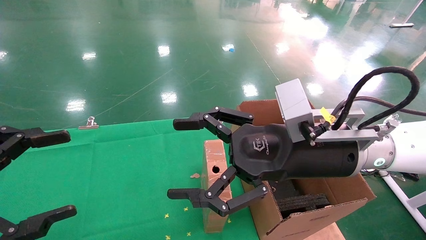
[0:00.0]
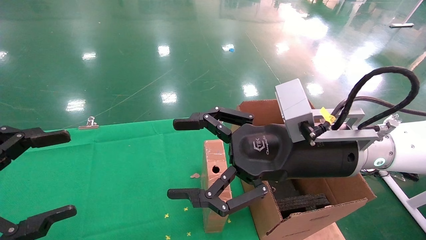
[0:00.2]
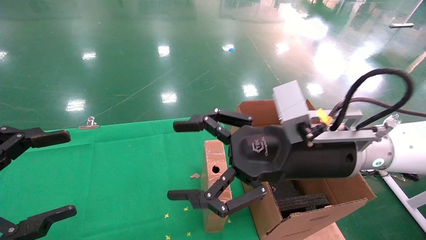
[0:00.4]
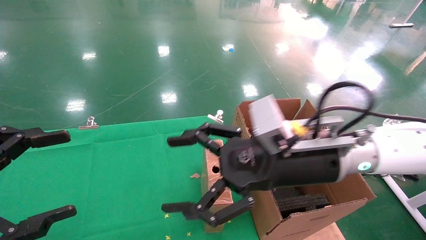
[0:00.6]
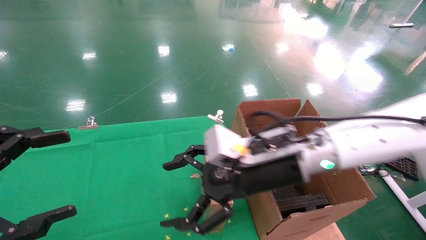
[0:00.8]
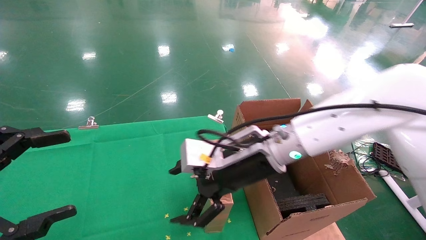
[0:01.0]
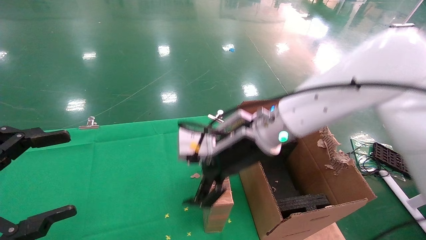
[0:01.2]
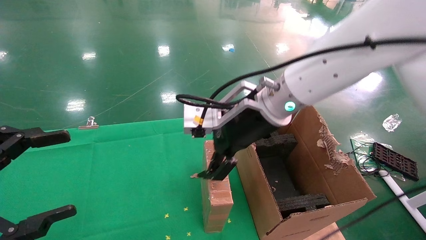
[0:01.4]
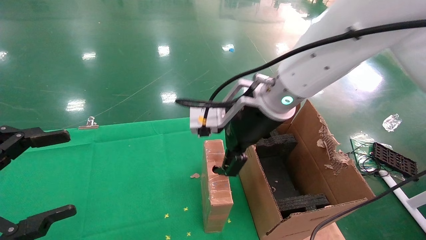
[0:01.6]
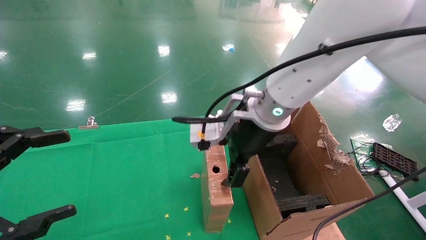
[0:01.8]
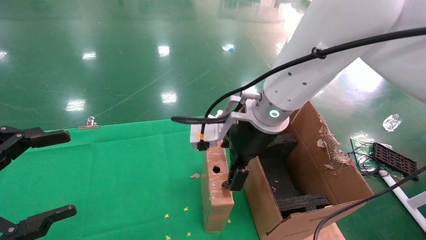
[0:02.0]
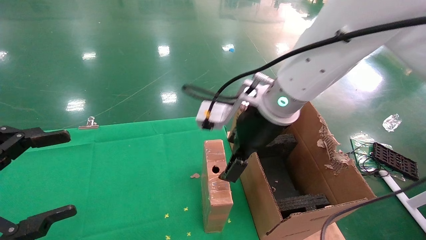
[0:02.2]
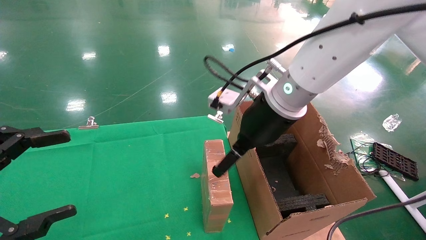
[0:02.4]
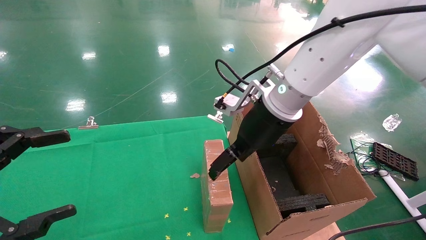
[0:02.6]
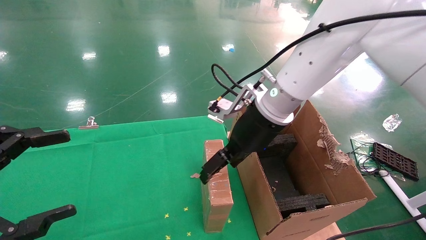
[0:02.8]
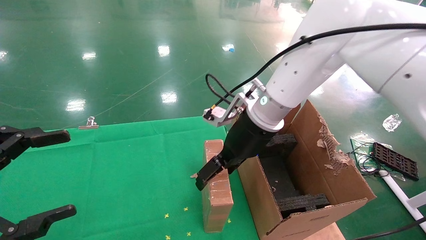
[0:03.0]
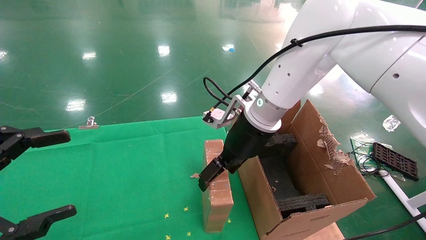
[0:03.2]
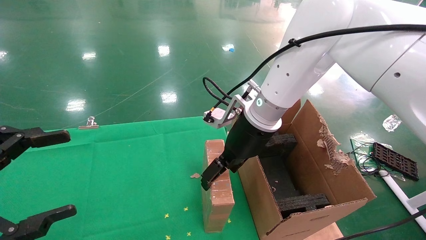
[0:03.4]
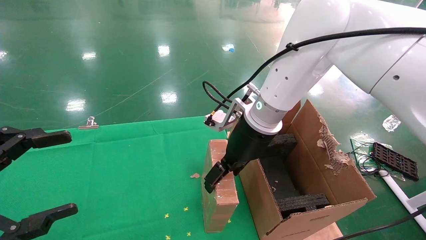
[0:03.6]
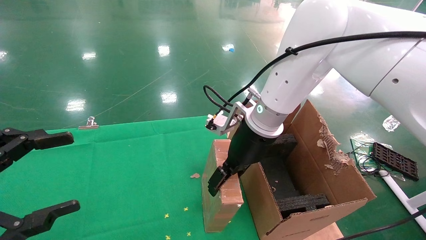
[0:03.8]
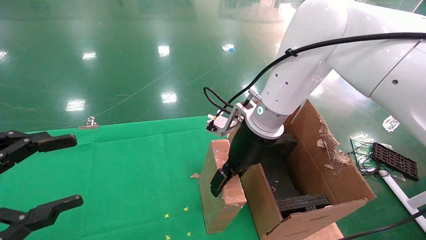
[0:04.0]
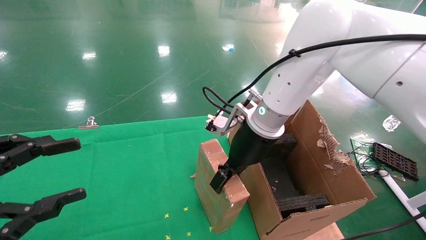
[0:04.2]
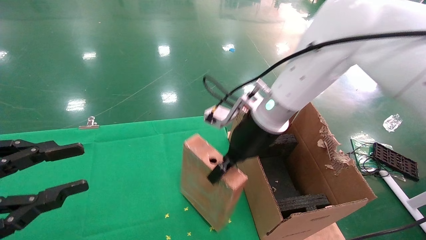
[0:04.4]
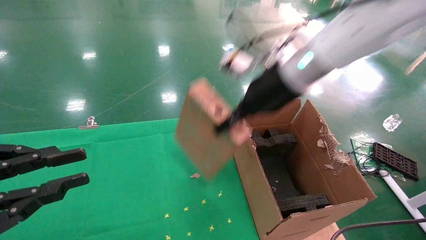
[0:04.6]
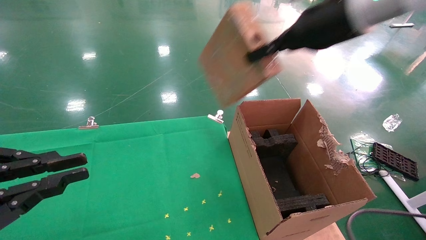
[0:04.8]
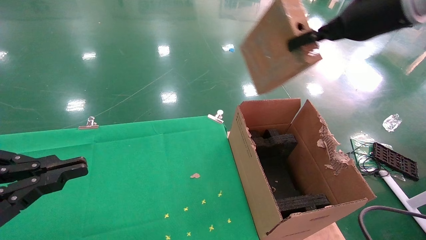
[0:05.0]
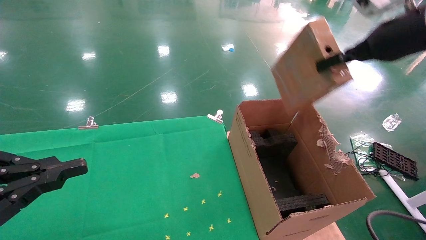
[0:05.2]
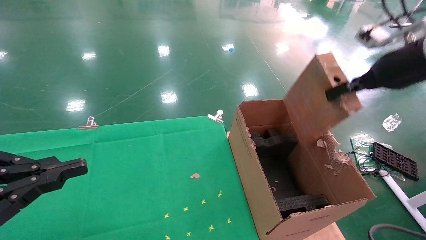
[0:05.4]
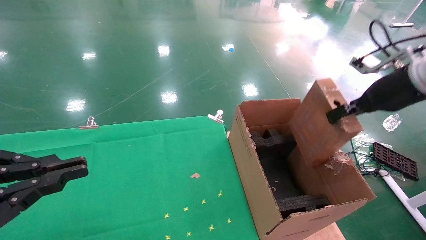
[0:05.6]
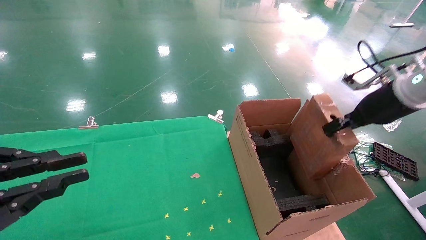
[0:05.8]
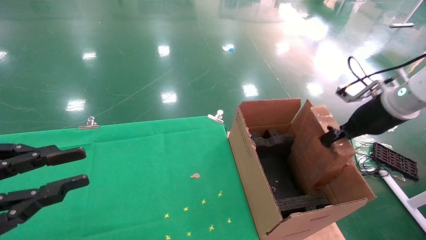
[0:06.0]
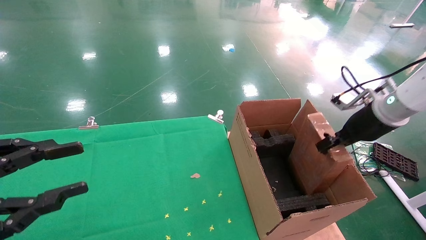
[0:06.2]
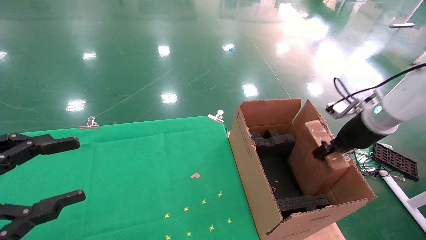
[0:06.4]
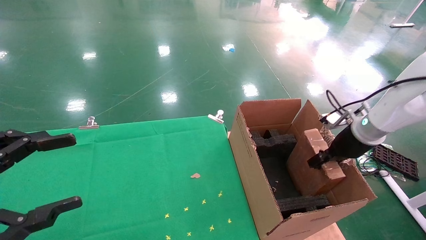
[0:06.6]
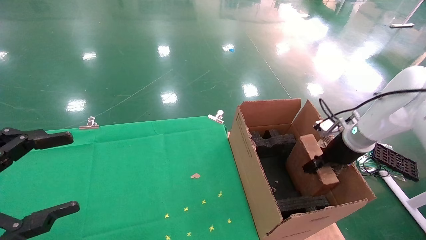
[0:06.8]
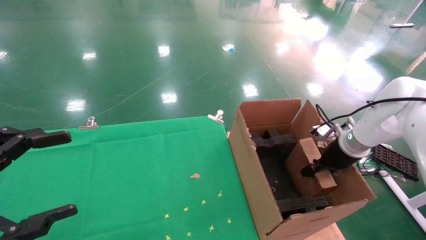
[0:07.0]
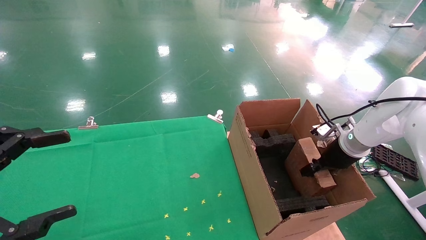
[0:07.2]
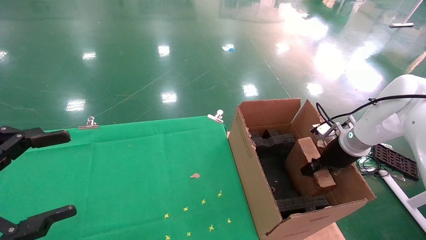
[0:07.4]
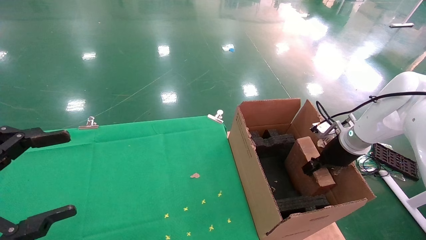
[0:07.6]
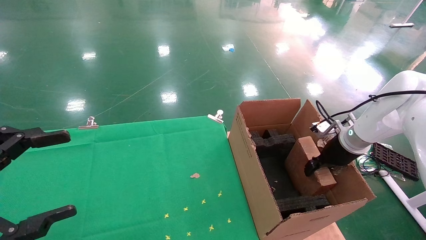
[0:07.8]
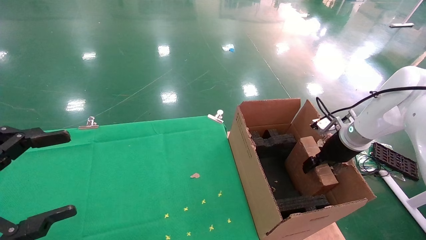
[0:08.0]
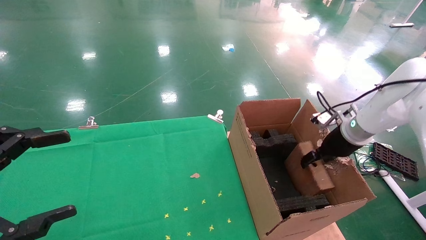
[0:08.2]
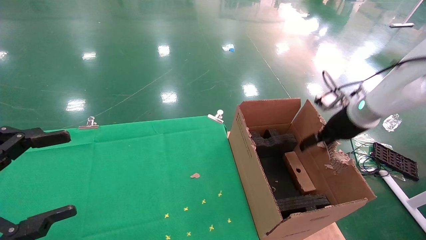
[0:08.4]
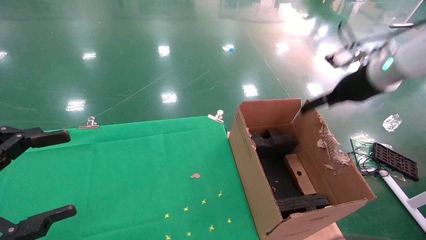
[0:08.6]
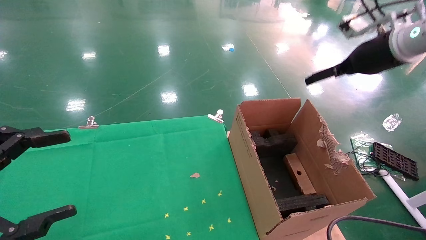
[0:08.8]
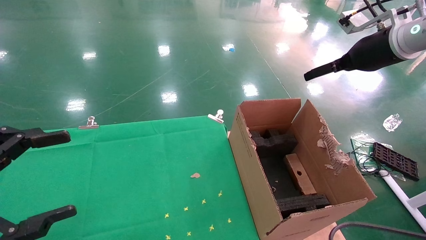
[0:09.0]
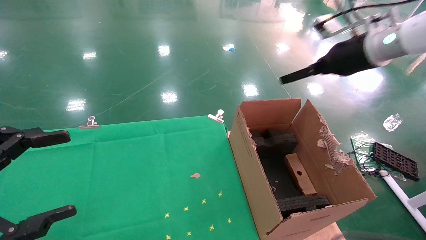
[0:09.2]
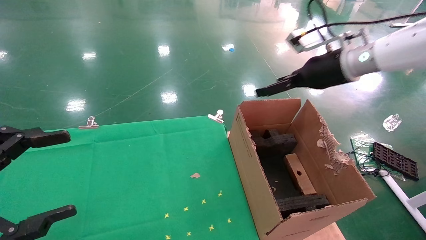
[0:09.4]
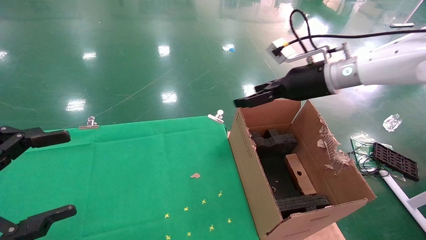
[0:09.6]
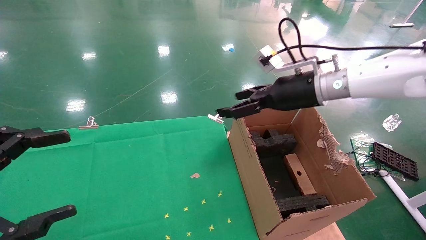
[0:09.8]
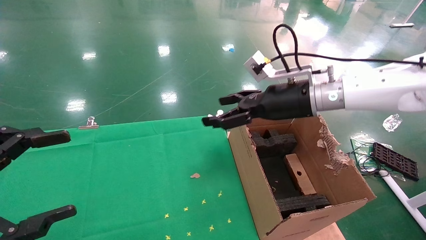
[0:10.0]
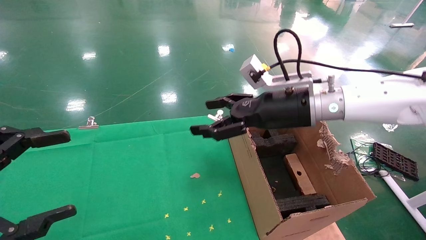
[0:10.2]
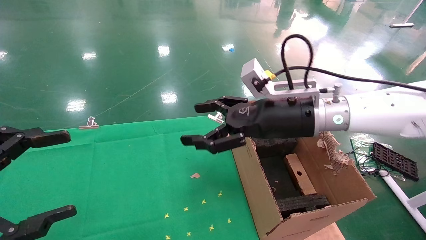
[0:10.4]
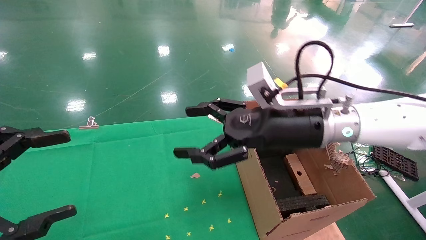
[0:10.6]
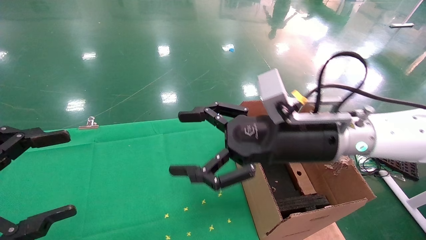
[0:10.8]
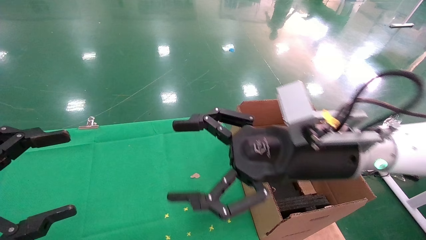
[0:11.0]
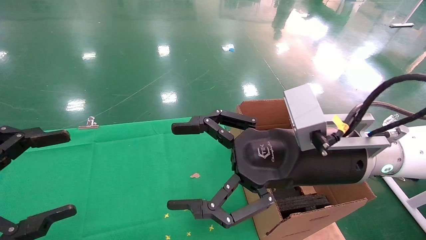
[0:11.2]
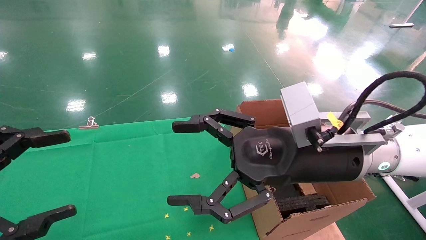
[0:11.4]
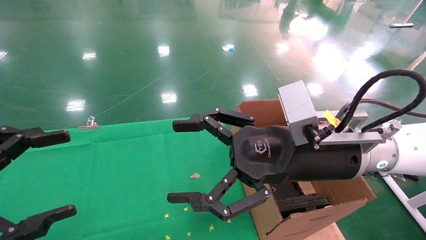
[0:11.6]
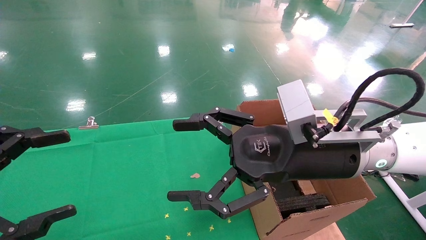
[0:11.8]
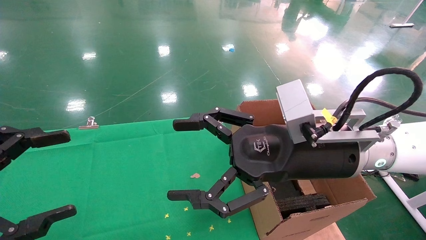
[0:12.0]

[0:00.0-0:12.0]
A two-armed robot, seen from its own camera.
Task of the whole recording: using a robotic arm to pick up a cardboard box and palace it the carton.
Step, 0:00.6 to 0:04.2: Pick up the mouse and the power cord paper box.
Step, 0:04.4 to 0:08.2: Place the mouse and the power cord paper box into the container.
0:00.0 to 0:01.6: The right gripper is displaced forward and to the left by roughly 10 cm.
0:03.0 to 0:04.4: The left gripper closes. The right gripper closes.
0:04.4 to 0:06.0: The right gripper is displaced to the right by approximately 25 cm.
0:06.0 to 0:07.6: The right gripper shifts some 15 cm downward and forward. The left gripper opens its fingers.
0:07.6 to 0:09.0: The right gripper moves upward, some 20 cm, and opens.
0:09.0 to 0:10.4: The right gripper goes some 20 cm to the left and downward.
0:10.4 to 0:12.0: The right gripper shifts approximately 10 cm backward.

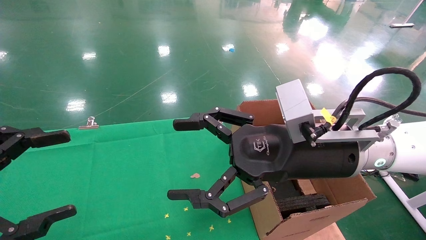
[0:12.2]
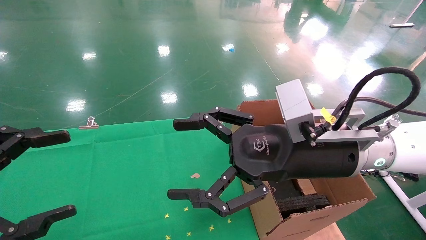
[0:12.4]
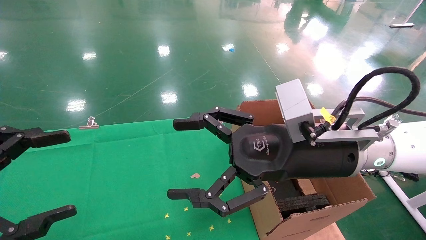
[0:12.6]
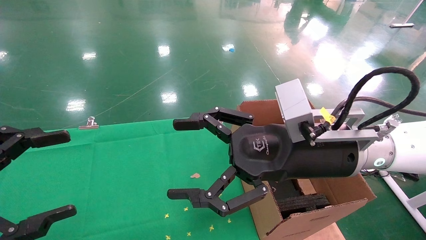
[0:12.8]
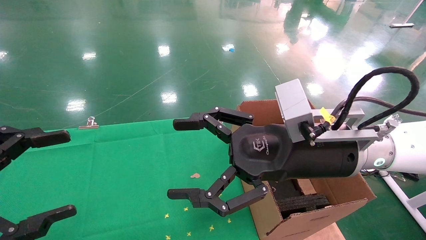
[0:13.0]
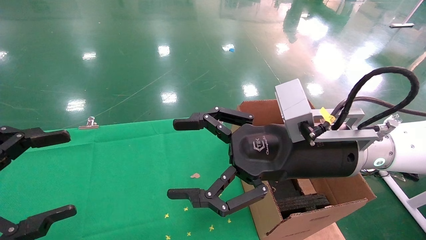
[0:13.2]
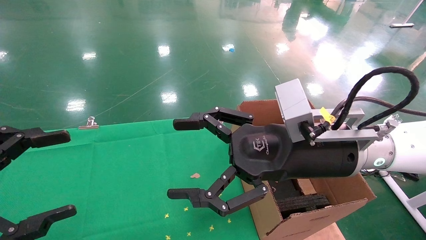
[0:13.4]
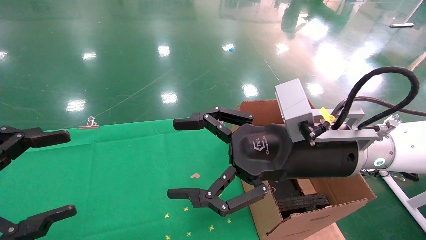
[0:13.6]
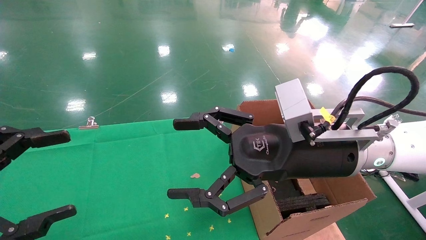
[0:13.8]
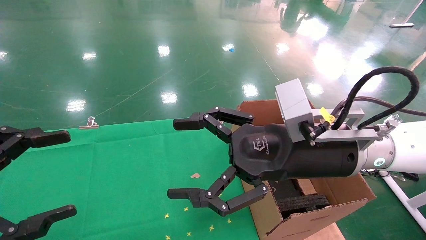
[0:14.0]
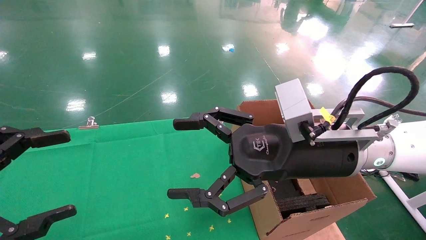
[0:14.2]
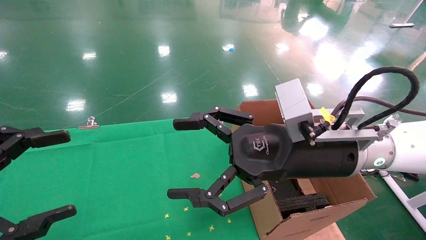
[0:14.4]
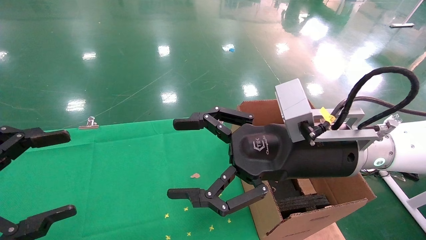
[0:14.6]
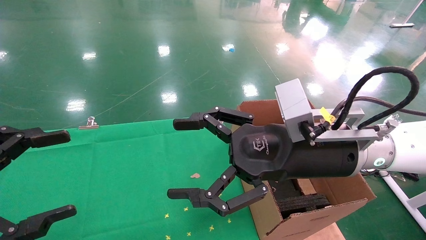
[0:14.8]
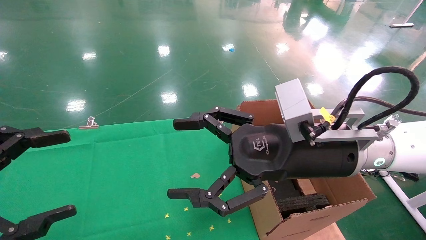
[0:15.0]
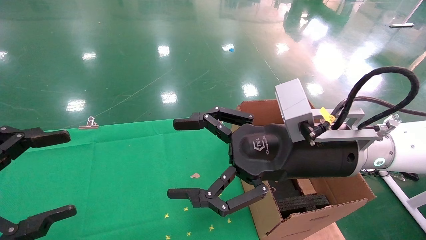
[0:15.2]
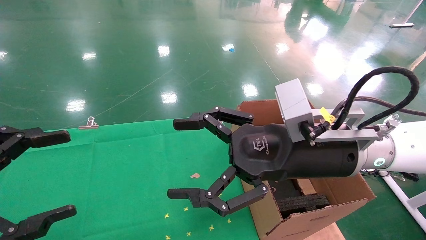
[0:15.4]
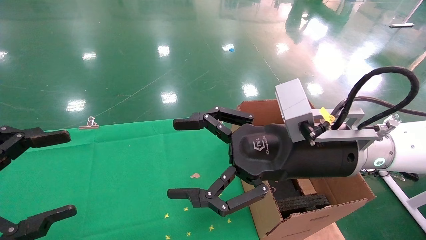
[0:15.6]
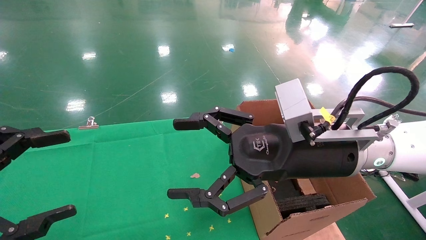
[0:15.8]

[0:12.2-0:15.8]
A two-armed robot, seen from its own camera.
Task of the whole recording: using a robotic arm to pick up a cardboard box and palace it the carton.
0:12.2 to 0:15.8: The two grippers keep their place.

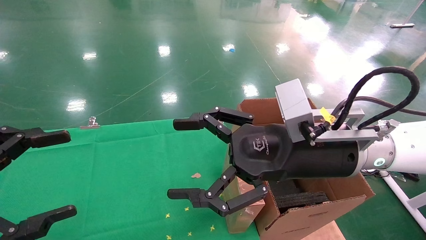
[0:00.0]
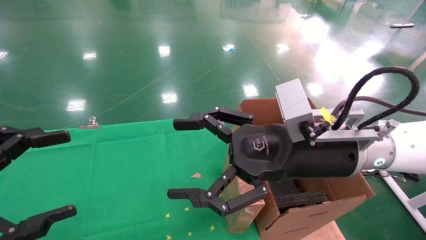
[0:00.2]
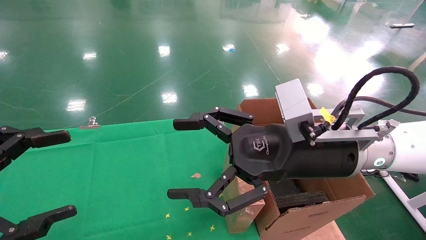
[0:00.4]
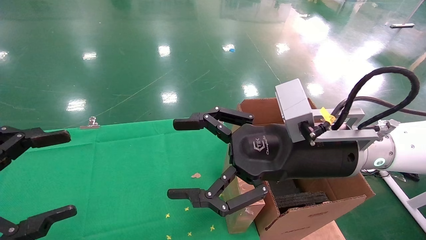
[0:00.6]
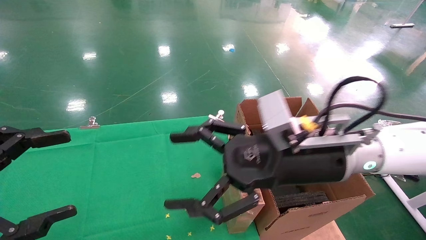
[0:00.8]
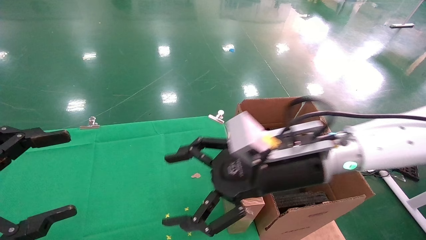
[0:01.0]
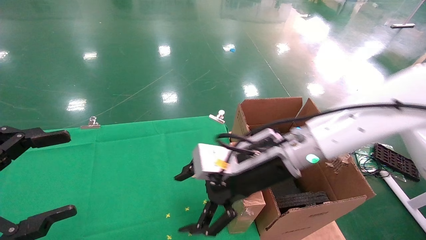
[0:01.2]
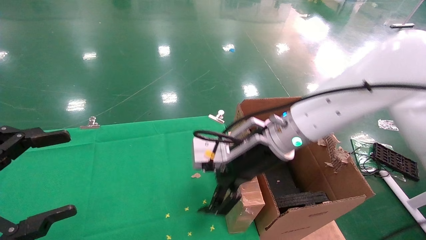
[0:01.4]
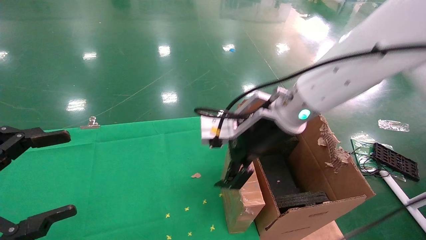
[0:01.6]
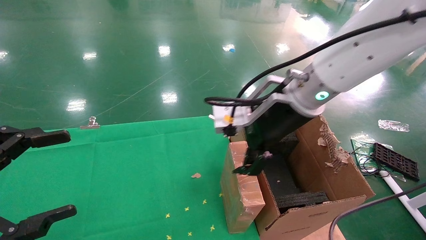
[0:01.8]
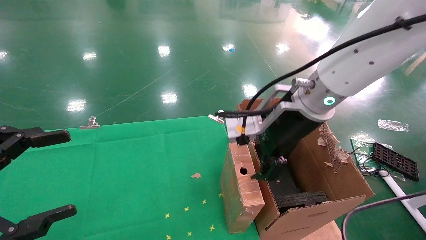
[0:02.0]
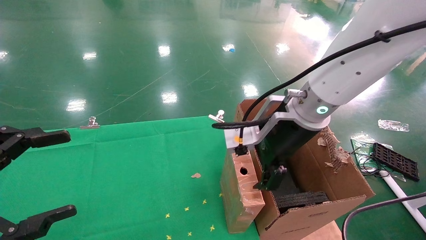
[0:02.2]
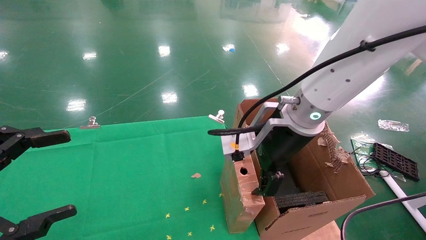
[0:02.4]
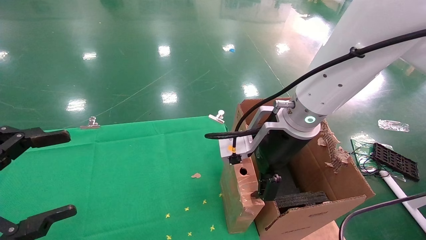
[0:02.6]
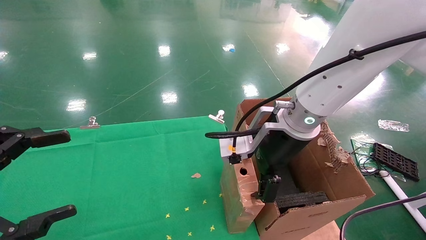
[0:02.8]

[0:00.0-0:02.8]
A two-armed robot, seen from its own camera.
Task of the whole recording: using a robotic arm to pick up a cardboard box and palace it the carton.
0:00.0 to 0:01.4: The right gripper goes about 10 cm forward.
